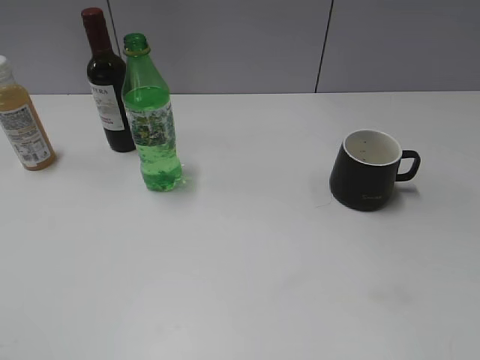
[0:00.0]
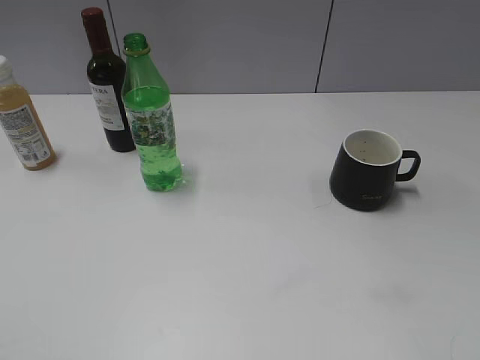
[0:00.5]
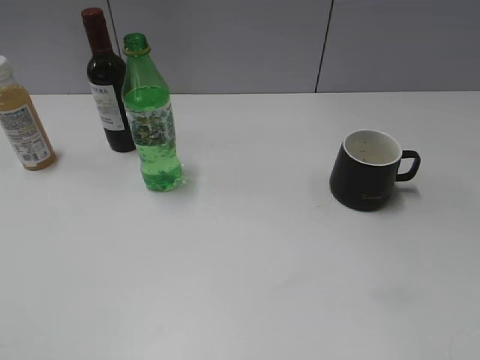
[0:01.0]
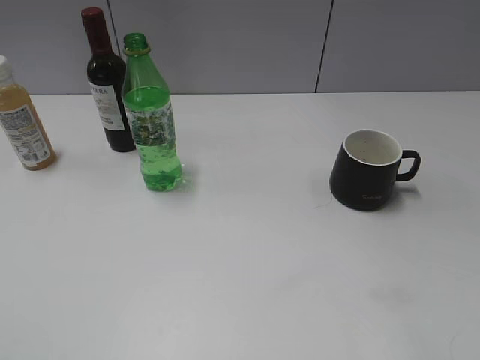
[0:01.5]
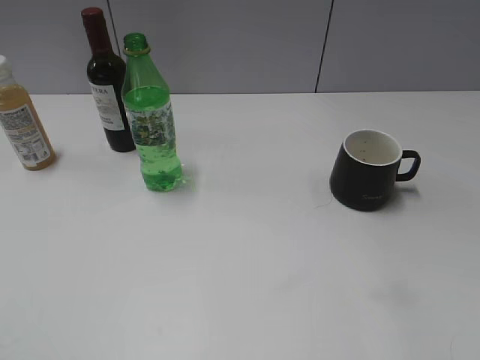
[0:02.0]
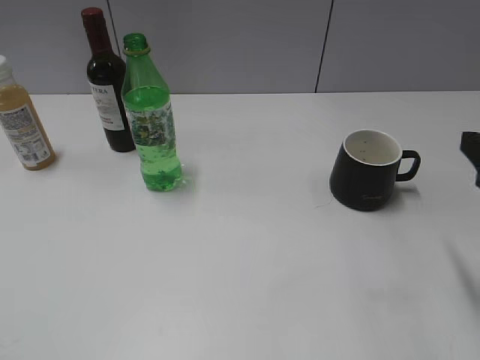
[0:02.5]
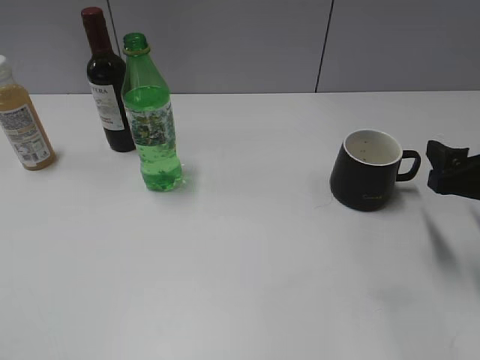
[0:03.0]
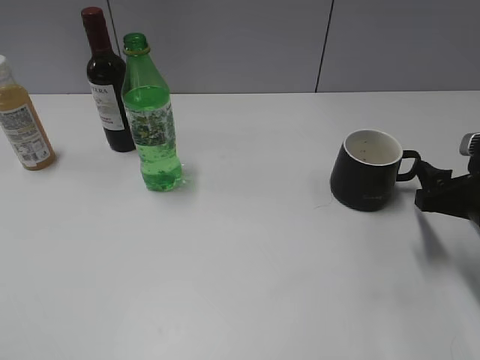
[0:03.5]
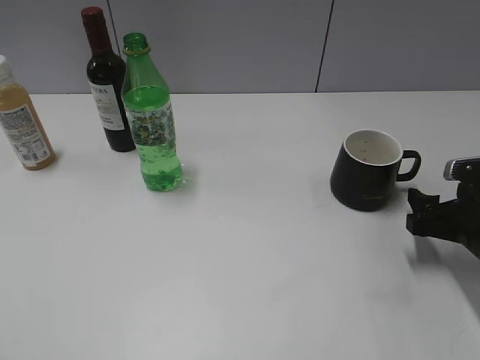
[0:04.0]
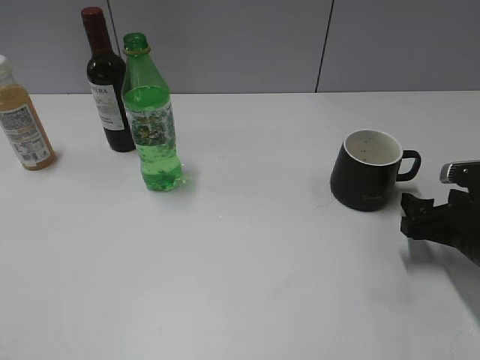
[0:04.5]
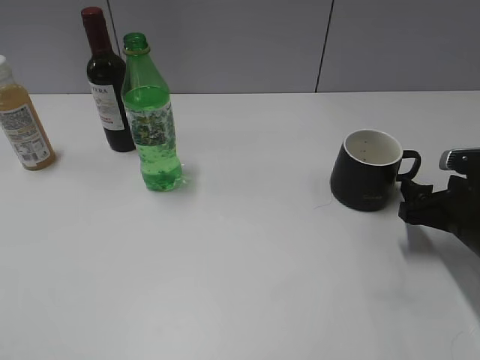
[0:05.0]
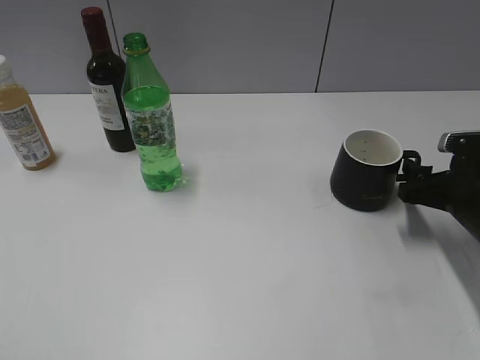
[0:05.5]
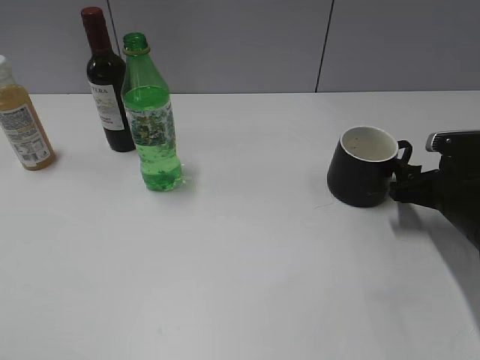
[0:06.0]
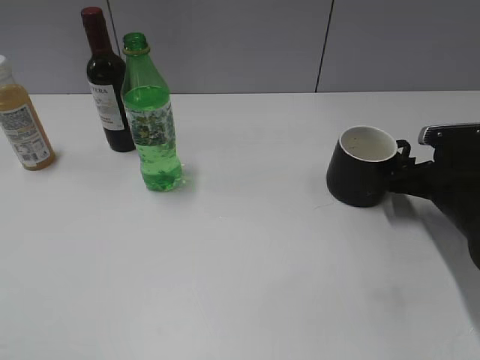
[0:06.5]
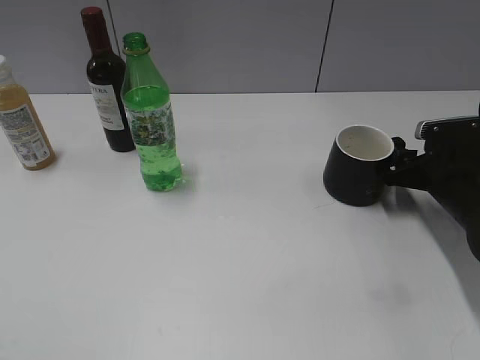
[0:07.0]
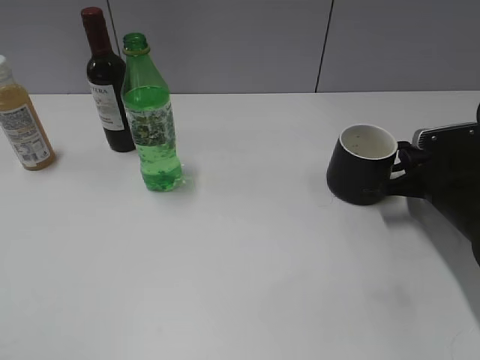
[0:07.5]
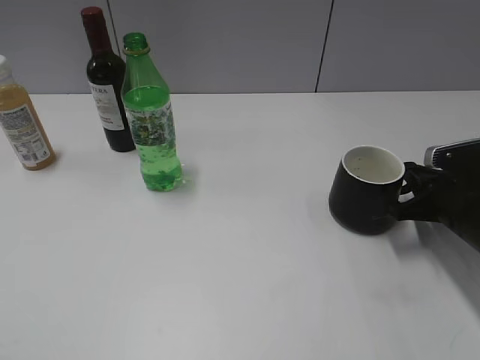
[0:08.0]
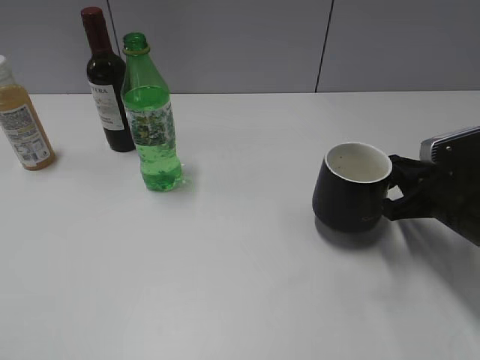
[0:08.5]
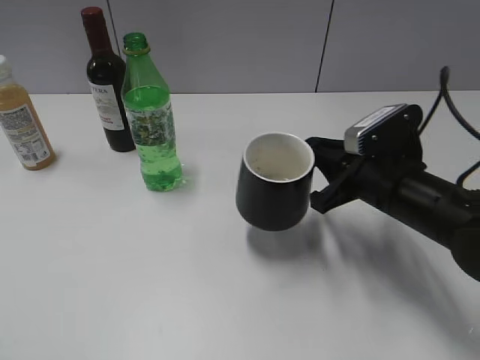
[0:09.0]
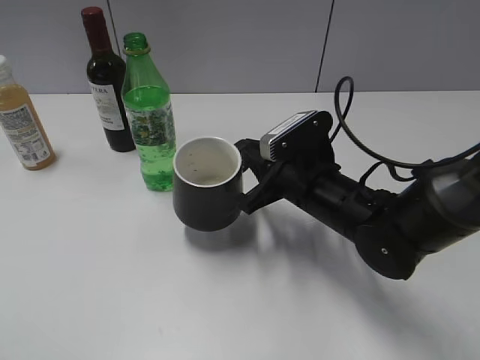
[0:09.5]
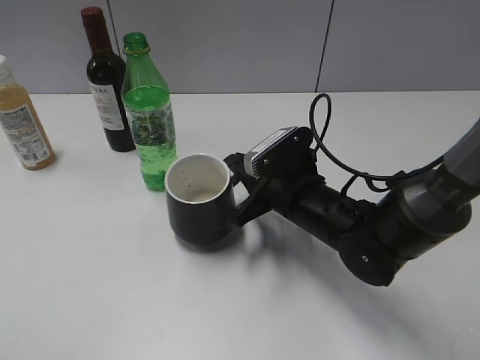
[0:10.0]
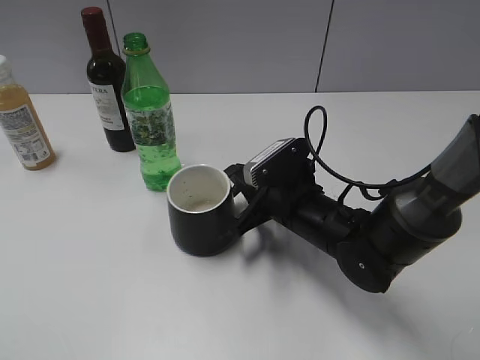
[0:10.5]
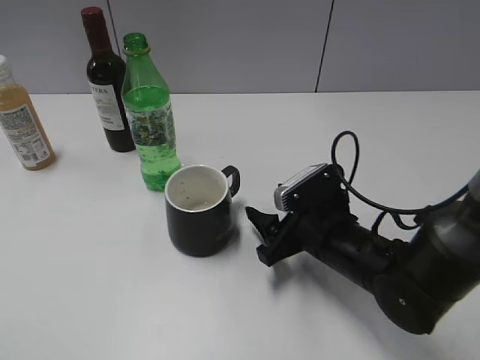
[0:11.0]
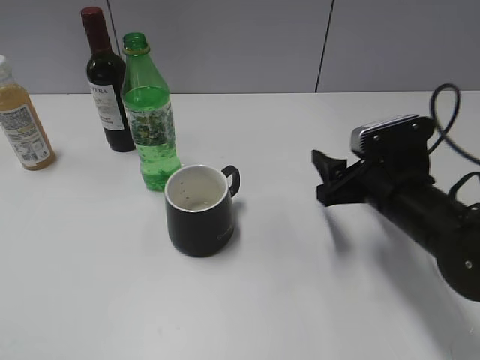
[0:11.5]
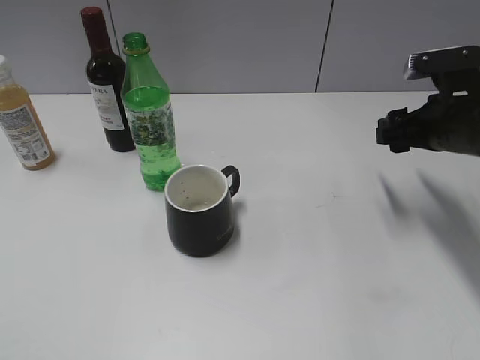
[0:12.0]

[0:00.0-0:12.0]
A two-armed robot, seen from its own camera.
Step, 0:01.0 to 0:07.5: Grasp the black cup with right gripper.
Step, 0:08.0 to 0:10.5: Place the black cup in the center of view with right gripper.
0:02.0 to 0:04.0: The right gripper shifts some 25 cm downward and forward.
0:04.0 to 0:06.0: The right gripper shifts about 5 cm forward.
0:06.0 to 0:08.0: The right gripper closes.
0:08.0 to 0:10.0: The right gripper is displaced to the left by some 20 cm.
0:10.0 to 0:12.0: The right gripper goes approximately 20 cm to the right and upward, and opens up.

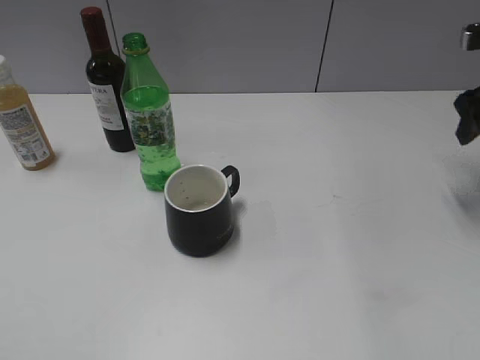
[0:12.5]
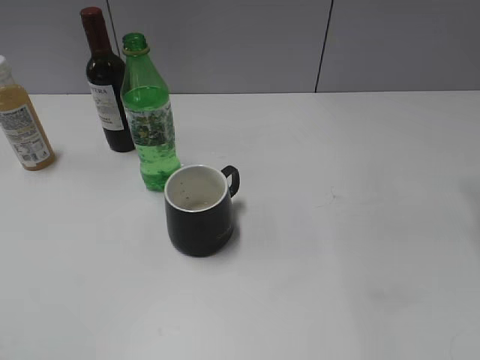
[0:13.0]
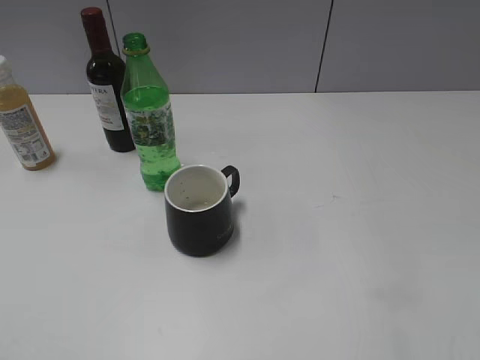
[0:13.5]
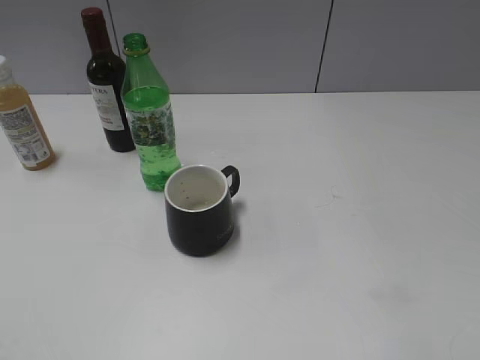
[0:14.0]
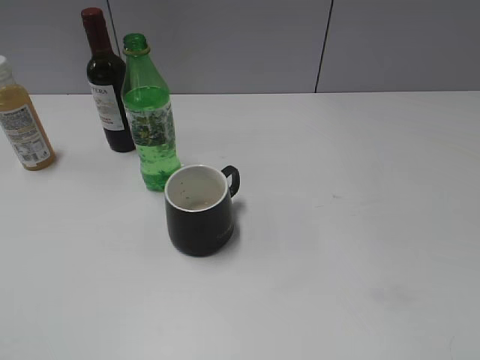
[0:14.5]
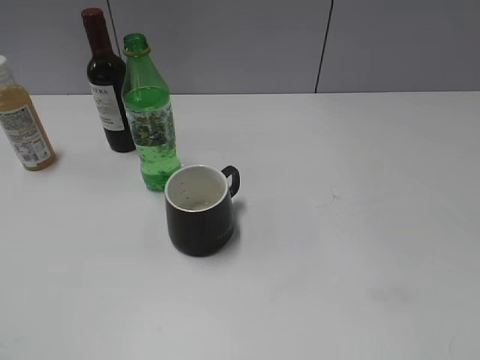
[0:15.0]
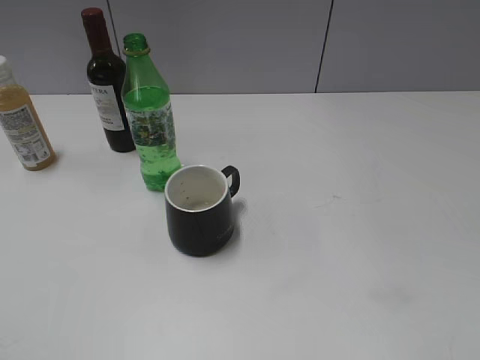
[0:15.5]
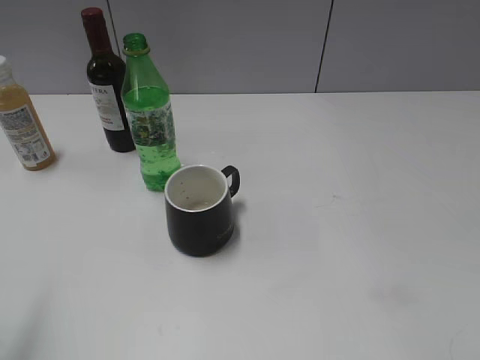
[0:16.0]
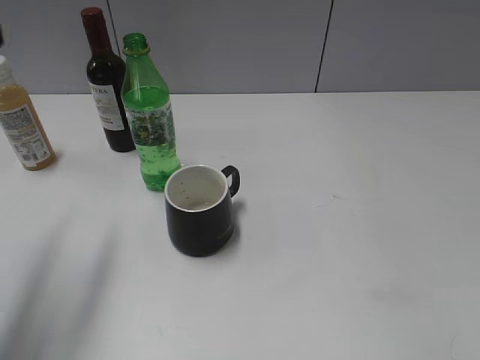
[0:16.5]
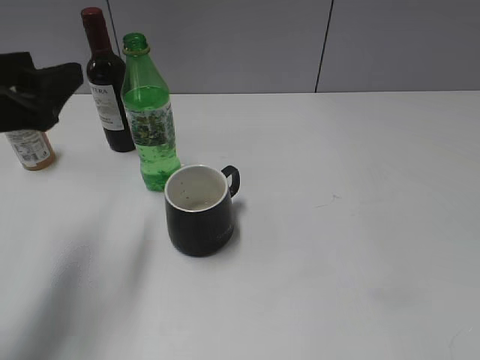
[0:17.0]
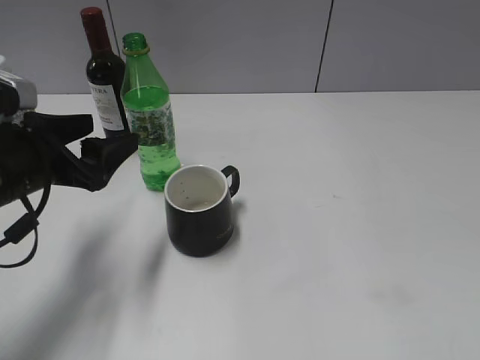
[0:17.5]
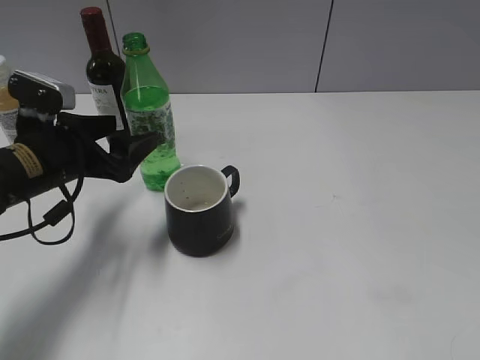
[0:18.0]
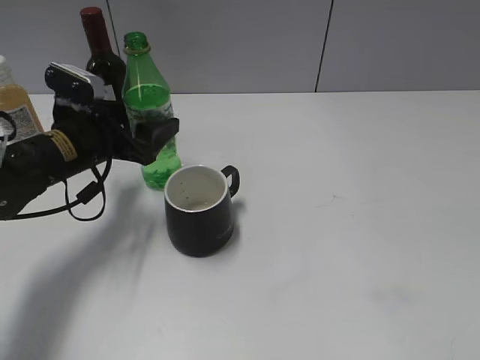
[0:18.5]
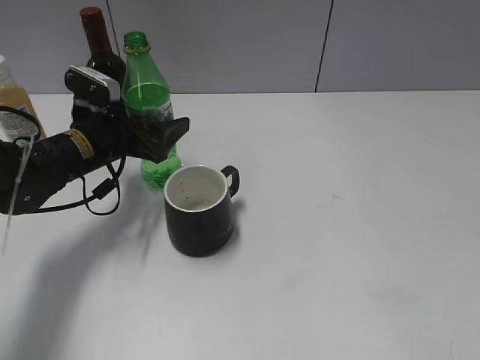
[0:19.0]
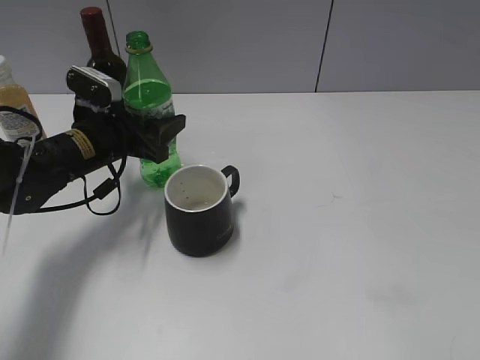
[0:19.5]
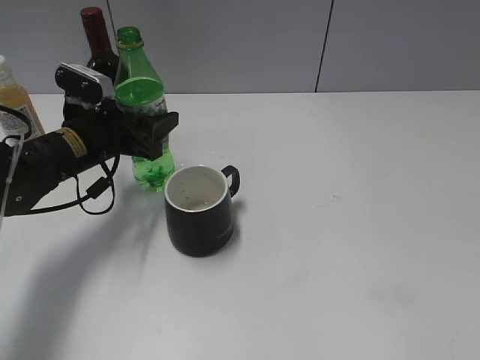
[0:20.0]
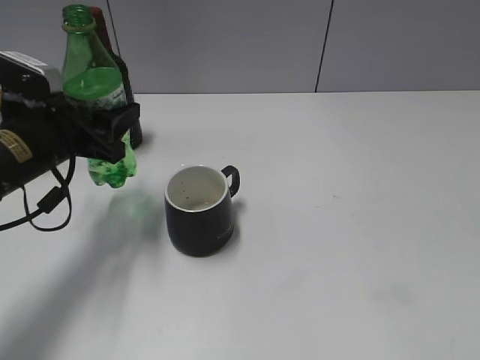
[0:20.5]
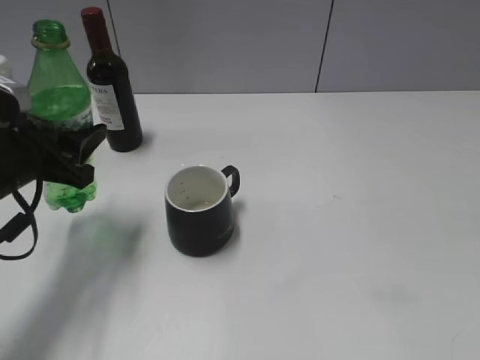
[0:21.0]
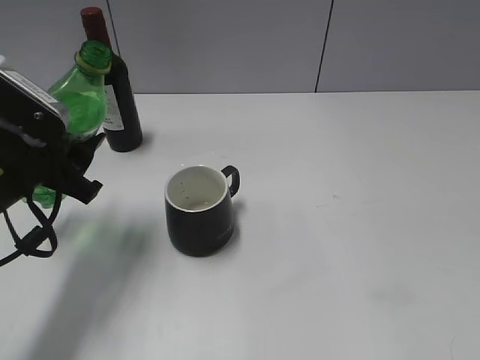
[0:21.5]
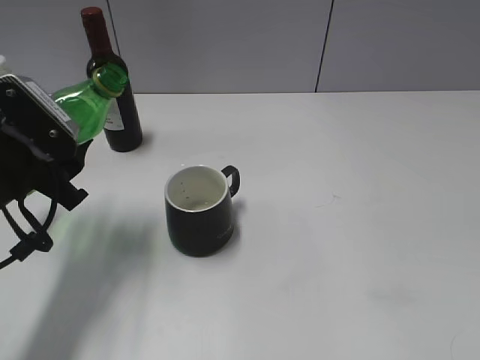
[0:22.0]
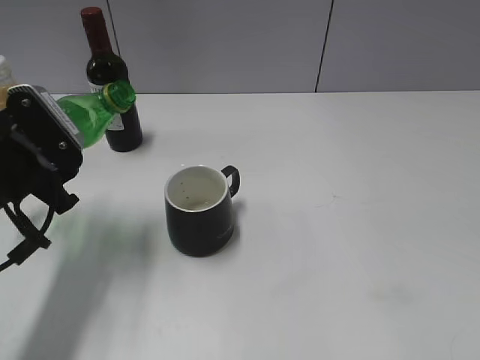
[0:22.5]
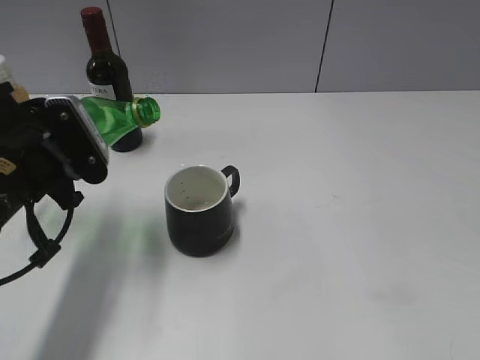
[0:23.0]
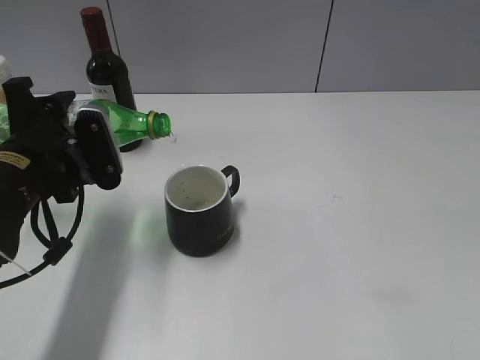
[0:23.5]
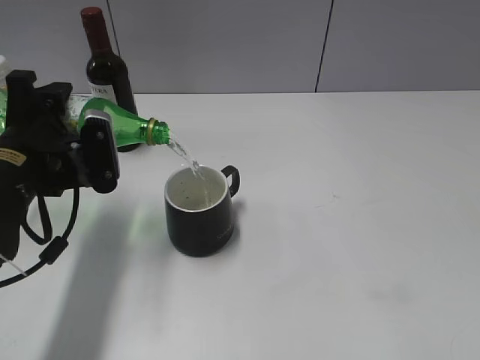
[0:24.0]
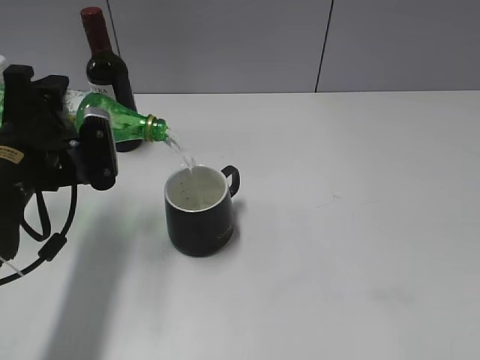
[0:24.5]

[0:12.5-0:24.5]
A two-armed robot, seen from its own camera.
Step, 0:12.5 to 0:19.5: Grasp the bottle with sprite with left gripper.
0:12.5 to 0:14.5: The right gripper heads backward, covering some 35 cm.
0:14.5 to 0:16.5: The left gripper goes about 20 cm forward.
0:16.5 to 0:18.5: The left gripper shifts some 20 cm downward, forward and to the right.
0:18.5 to 0:20.5: The left gripper changes place by some 5 cm, and closes up.
0:20.5 to 0:22.5: The left gripper heads backward, covering roughly 5 cm.

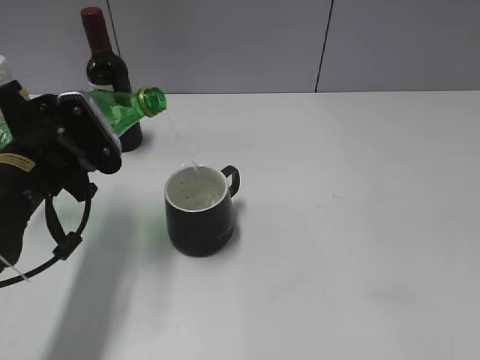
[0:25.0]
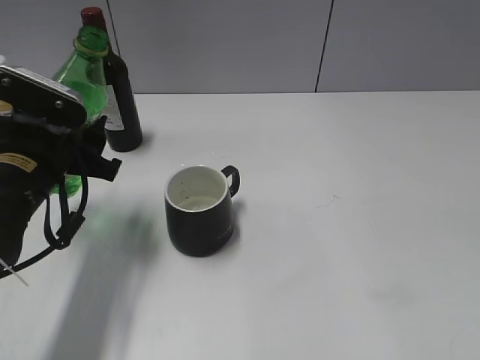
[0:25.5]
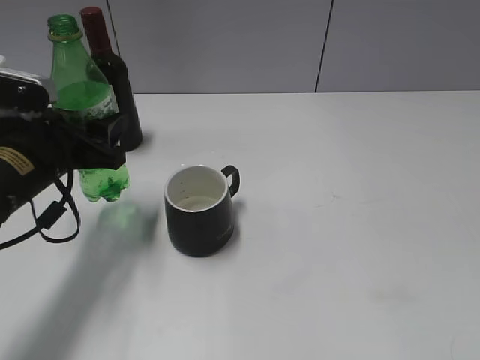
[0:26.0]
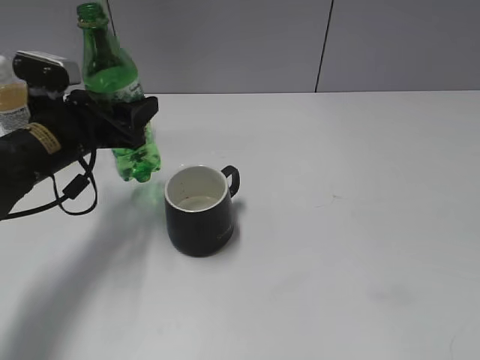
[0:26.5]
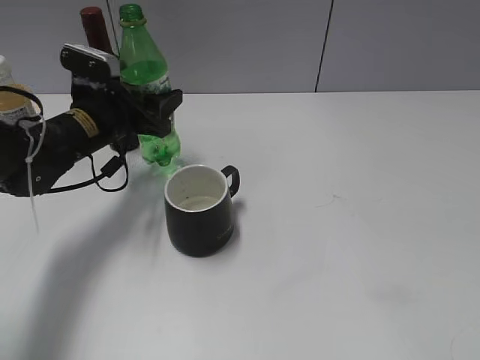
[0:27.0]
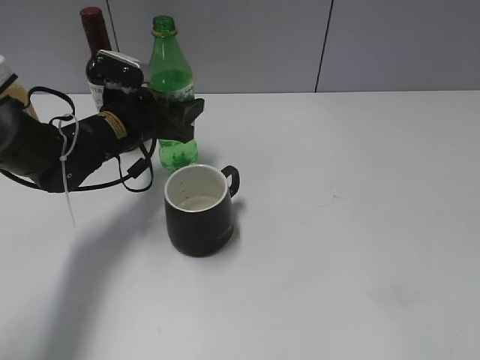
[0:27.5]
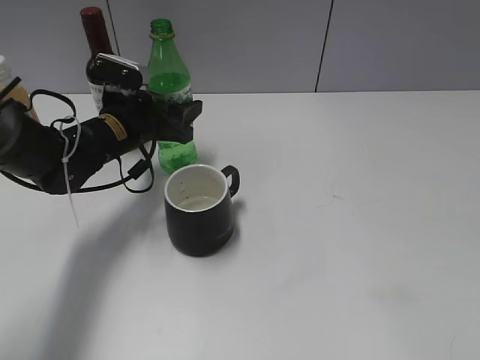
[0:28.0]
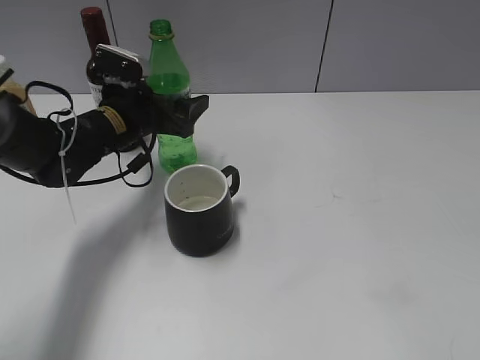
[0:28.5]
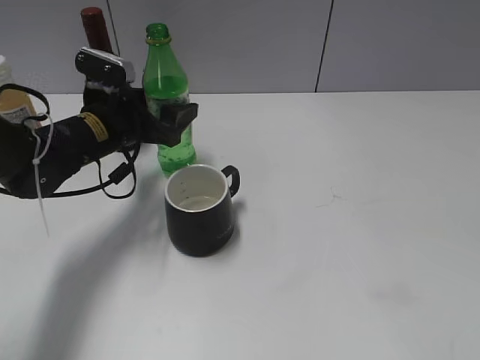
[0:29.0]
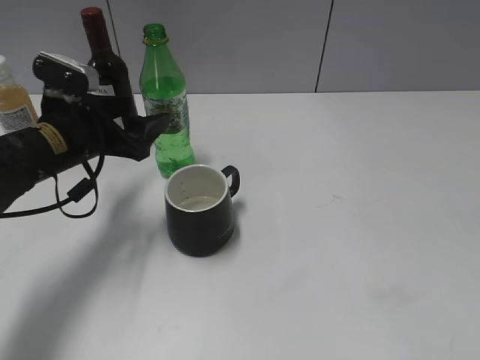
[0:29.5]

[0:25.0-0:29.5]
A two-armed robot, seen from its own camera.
Step, 0:25.5 to 0:29.0: Place the sprite bottle on the table with left gripper.
0:25.0 to 0:27.0: The left gripper shifts approximately 10 cm forward.
0:27.0 to 0:29.5: The left gripper moves backward, about 5 cm, and opens up.
